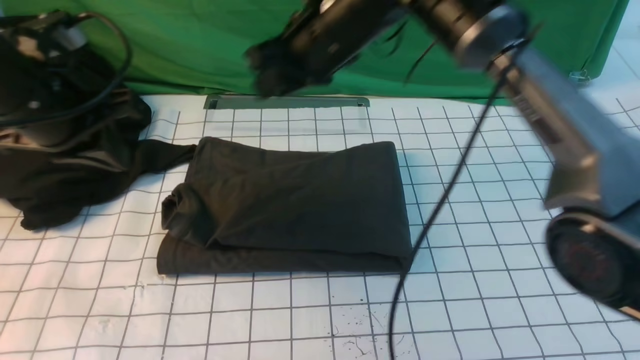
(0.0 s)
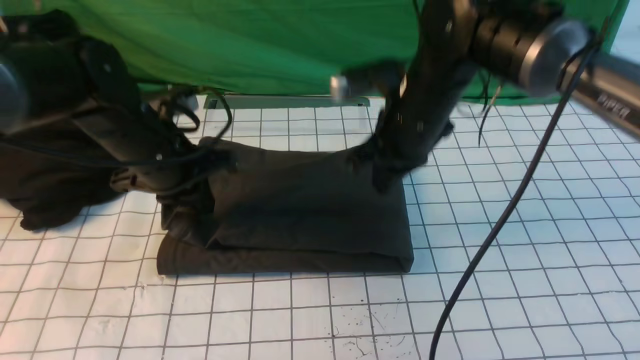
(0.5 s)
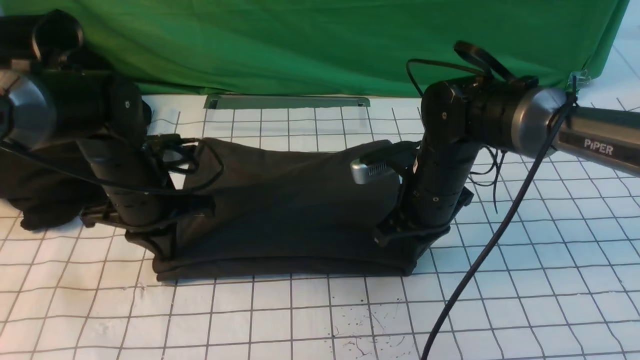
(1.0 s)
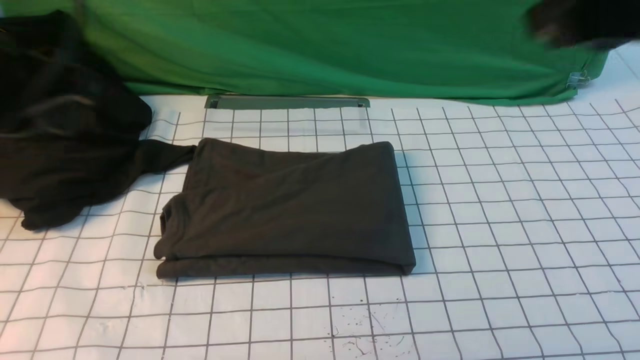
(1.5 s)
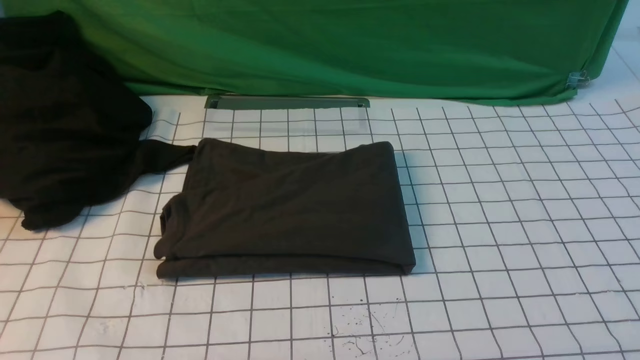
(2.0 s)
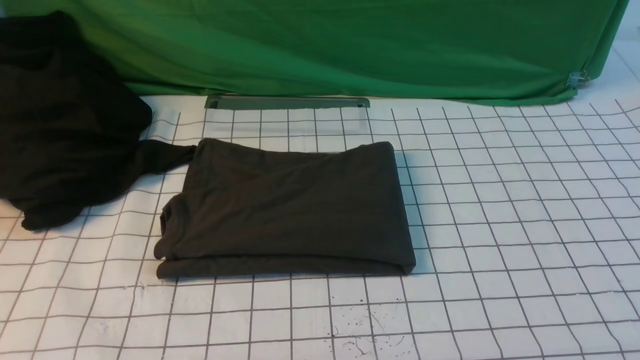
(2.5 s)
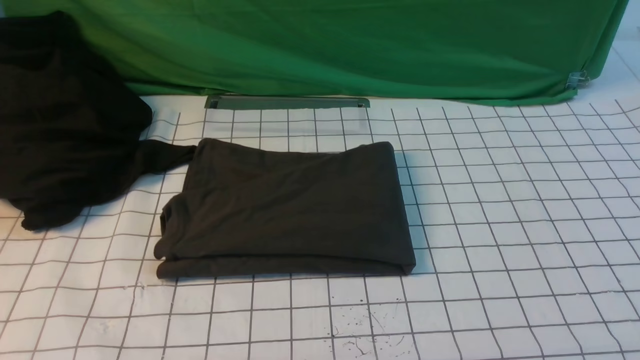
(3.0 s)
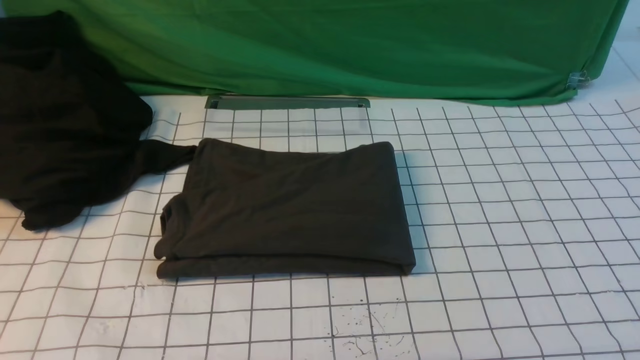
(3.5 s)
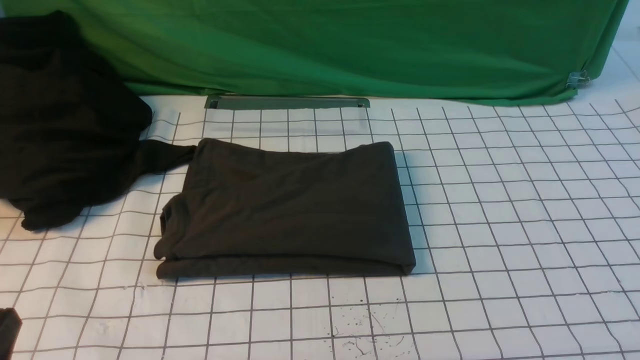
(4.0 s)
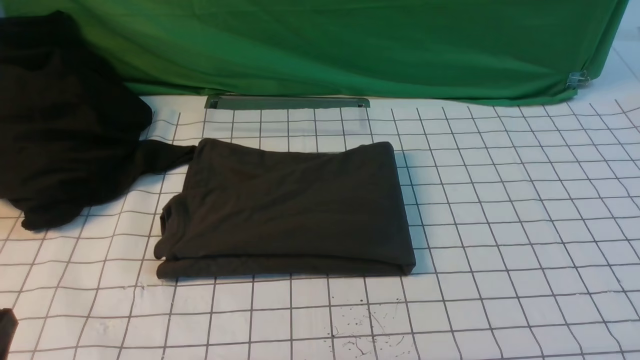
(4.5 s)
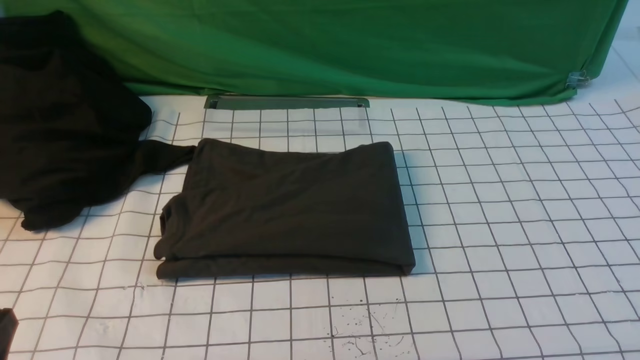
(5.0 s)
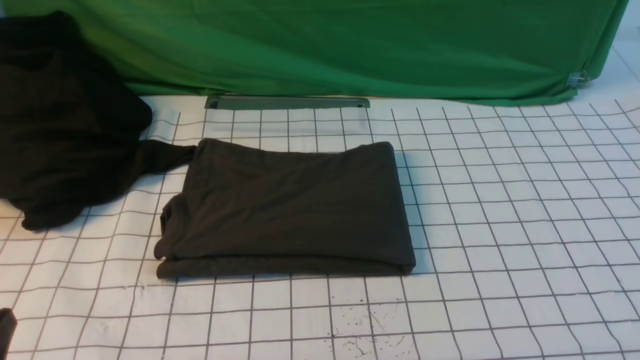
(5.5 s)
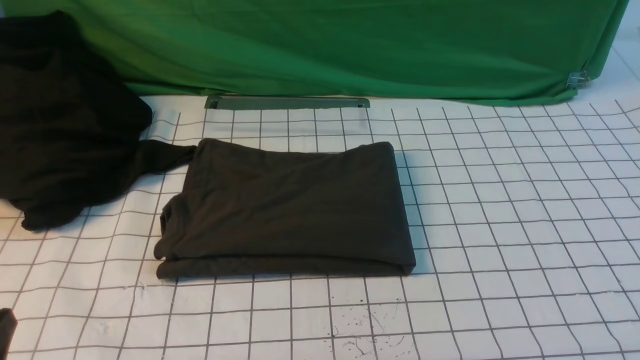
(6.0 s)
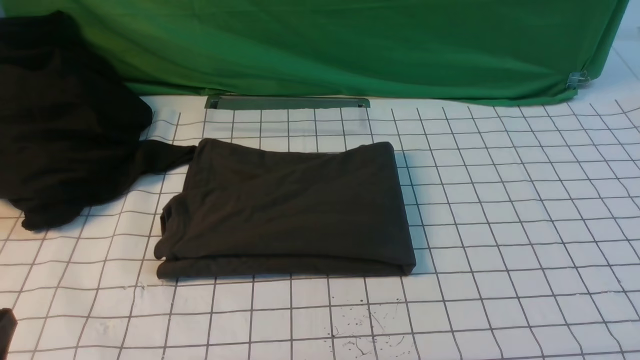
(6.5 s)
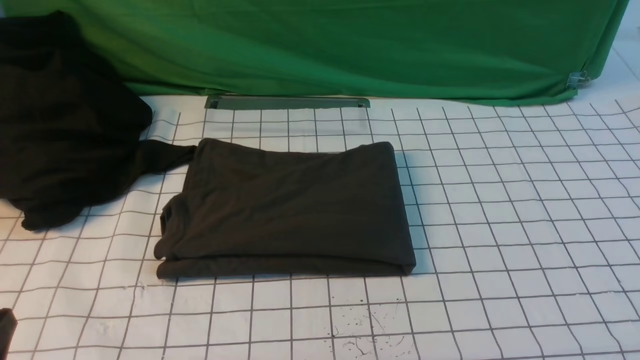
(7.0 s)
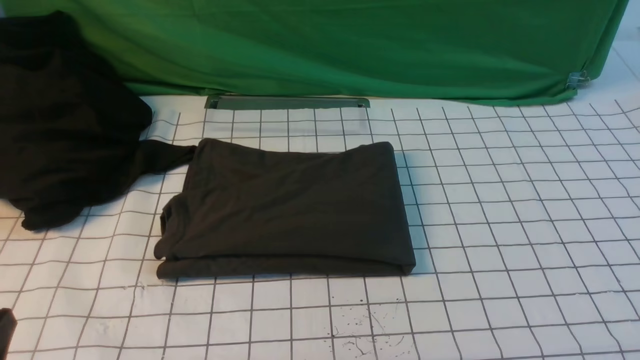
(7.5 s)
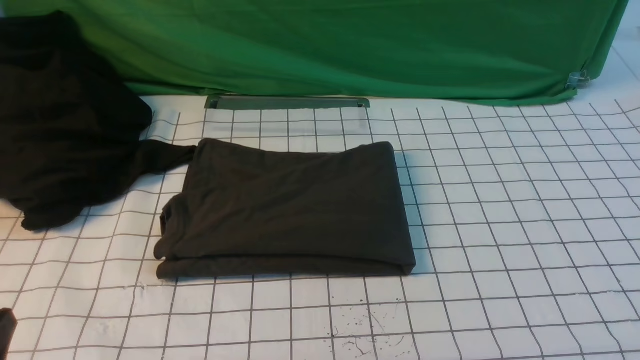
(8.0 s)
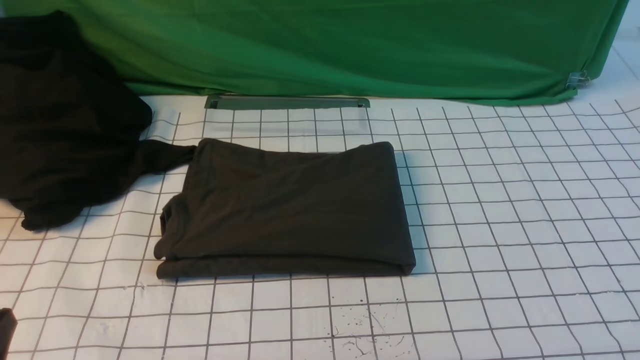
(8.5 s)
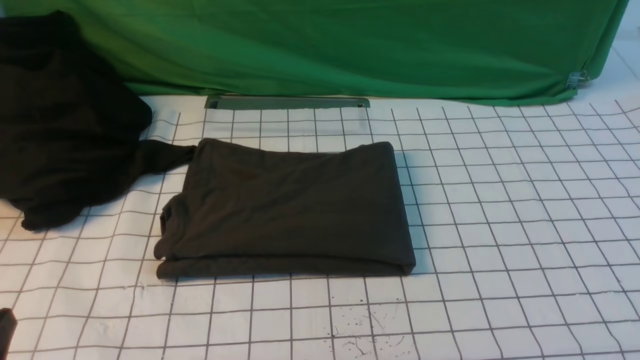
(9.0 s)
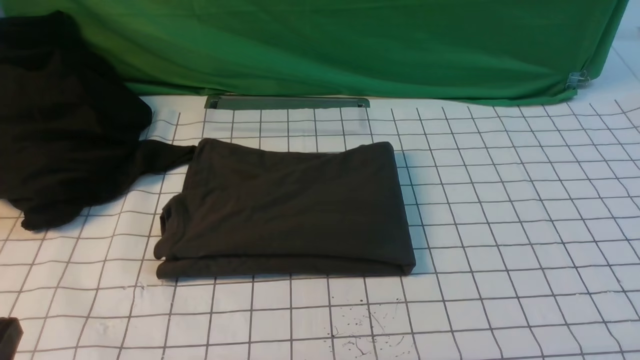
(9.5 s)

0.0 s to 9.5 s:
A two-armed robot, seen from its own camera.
0.0 to 2.0 s: The right gripper is displaced backward and to the right by approximately 50 cm, and closes. The left gripper moves backward, about 25 cm.
7.5 to 9.5 s: Neither gripper changes place.
